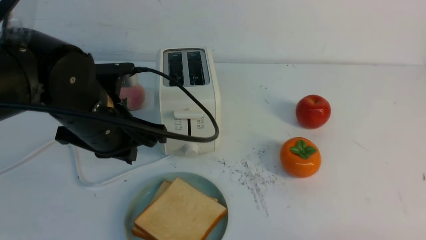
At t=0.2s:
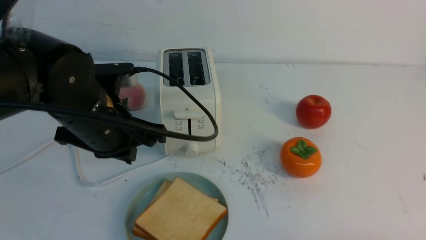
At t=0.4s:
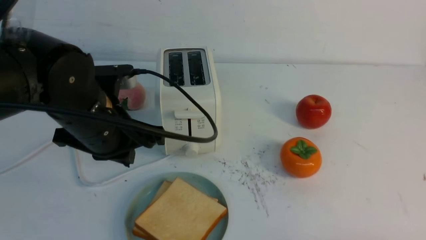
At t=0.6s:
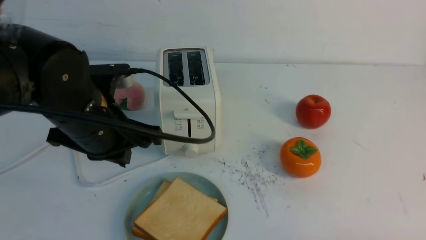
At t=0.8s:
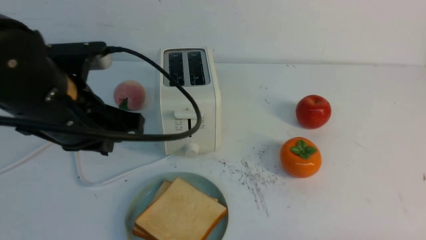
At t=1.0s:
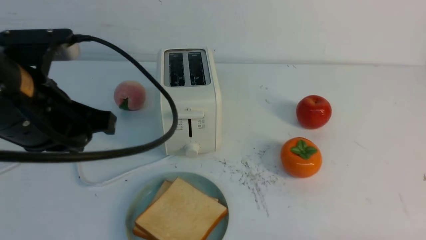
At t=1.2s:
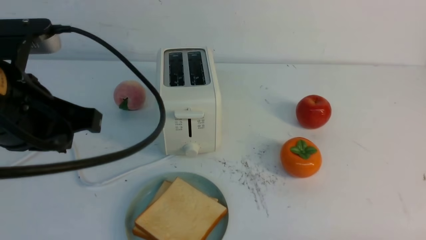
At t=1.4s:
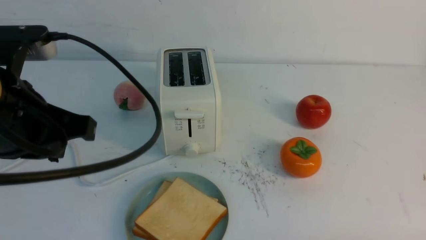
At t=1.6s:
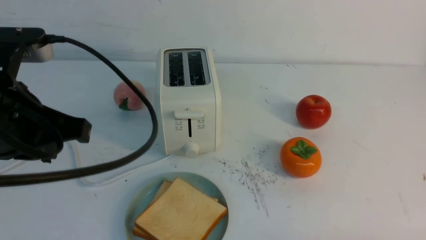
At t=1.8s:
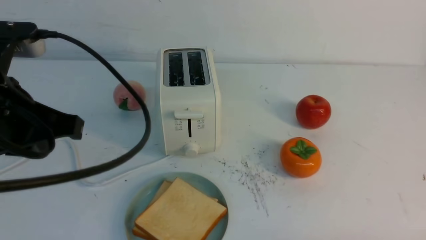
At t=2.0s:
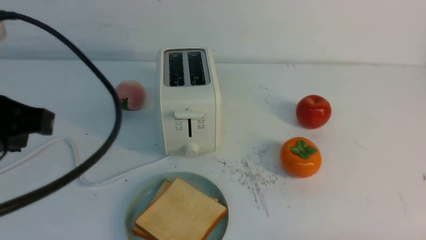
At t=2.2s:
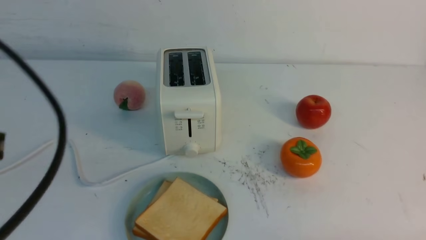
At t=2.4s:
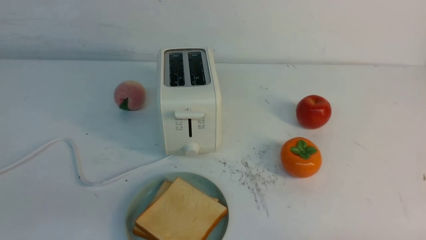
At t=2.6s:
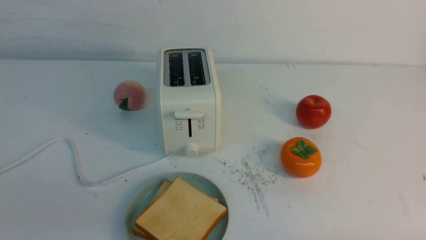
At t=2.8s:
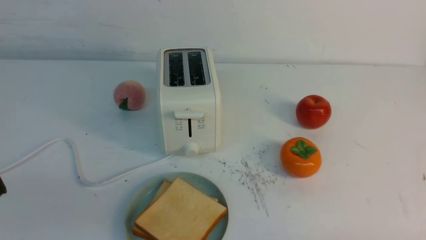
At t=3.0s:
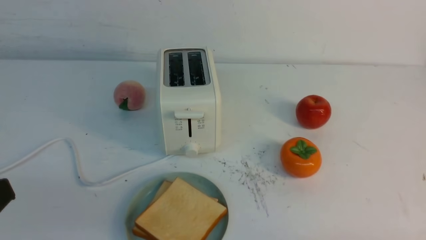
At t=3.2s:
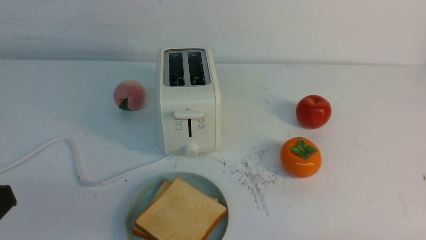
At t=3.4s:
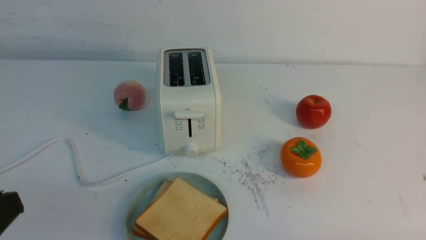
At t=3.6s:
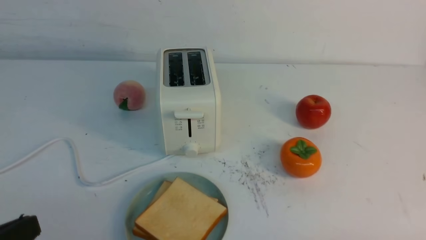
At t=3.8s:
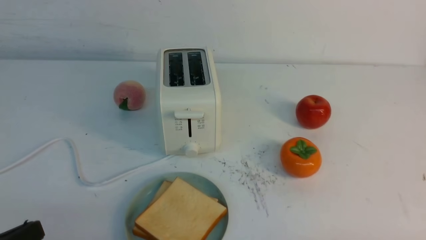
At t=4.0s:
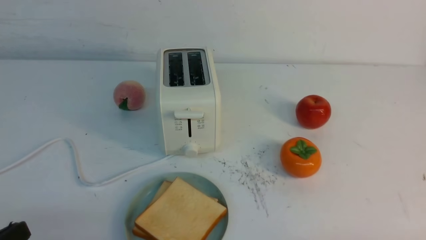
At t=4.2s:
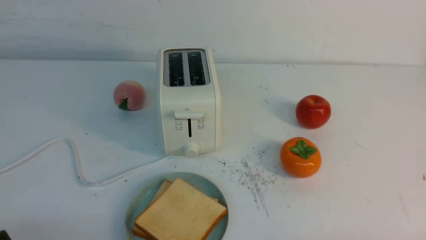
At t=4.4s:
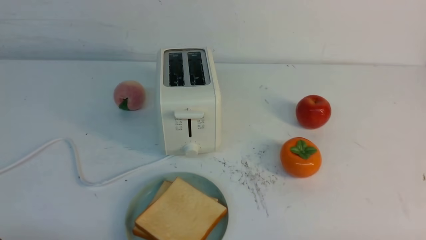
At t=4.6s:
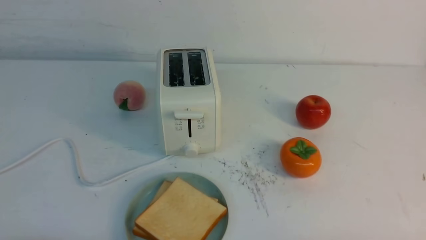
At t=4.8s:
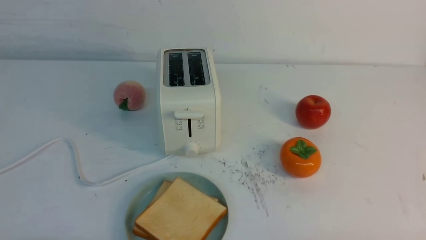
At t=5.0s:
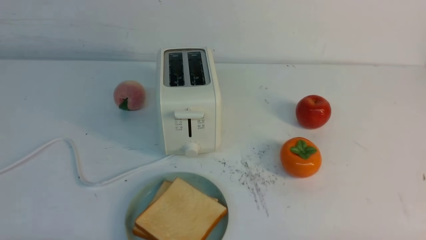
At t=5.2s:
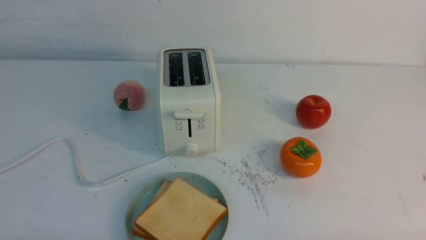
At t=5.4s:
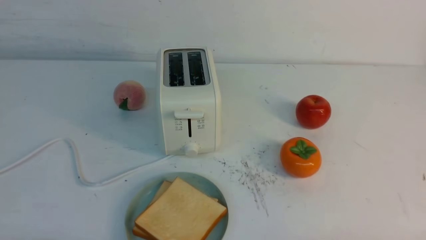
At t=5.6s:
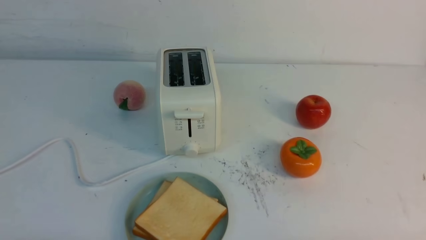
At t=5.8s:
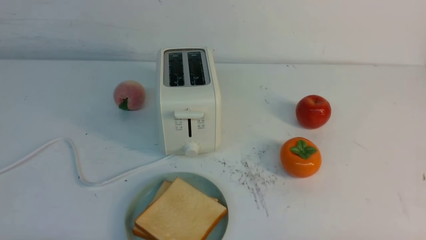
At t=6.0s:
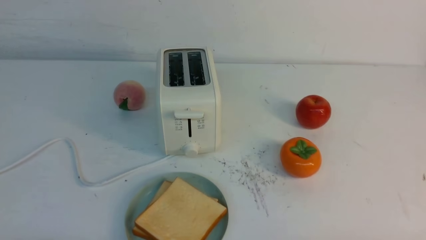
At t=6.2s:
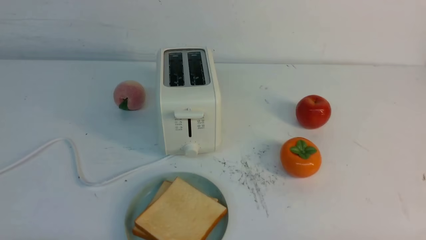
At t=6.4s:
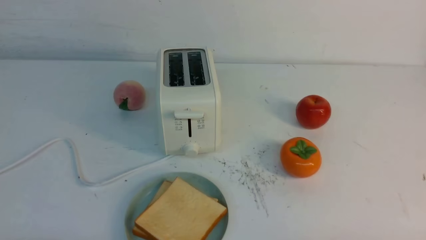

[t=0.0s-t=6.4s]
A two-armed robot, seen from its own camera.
Task of the whole recording: take toasted bread from bread machine on white table place on plate.
t=0.0s to t=1.6s: The left gripper travels backward, upward and to the left by roughly 15 cm.
t=1.6s to t=3.2s: The left gripper is displaced backward and downward by roughly 15 cm.
t=4.8s to t=6.4s: The two grippers keep their place.
